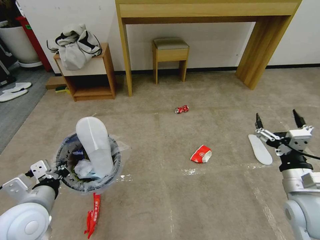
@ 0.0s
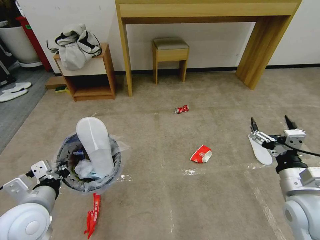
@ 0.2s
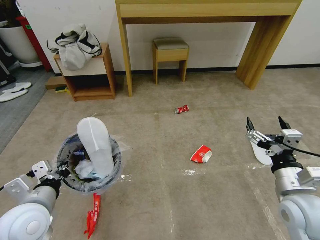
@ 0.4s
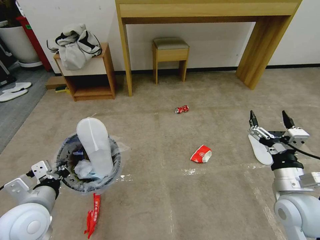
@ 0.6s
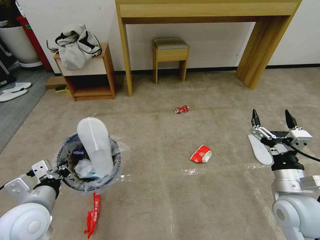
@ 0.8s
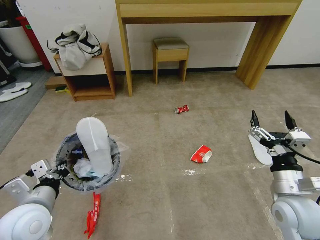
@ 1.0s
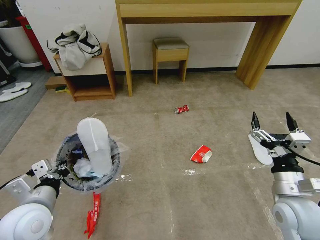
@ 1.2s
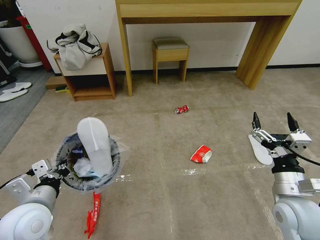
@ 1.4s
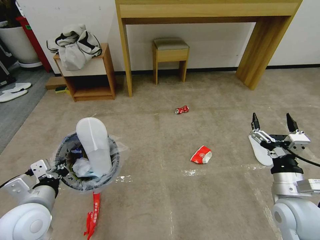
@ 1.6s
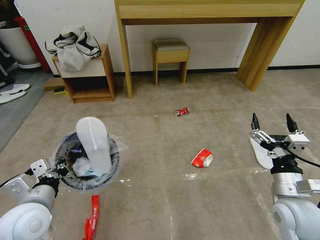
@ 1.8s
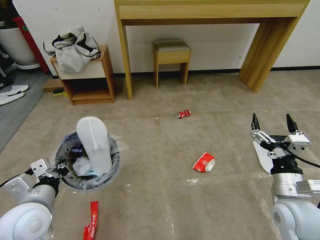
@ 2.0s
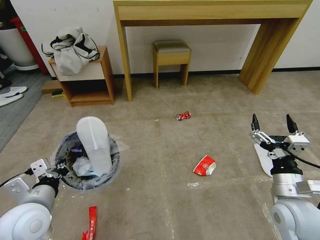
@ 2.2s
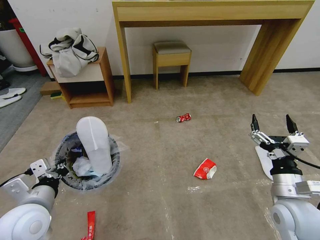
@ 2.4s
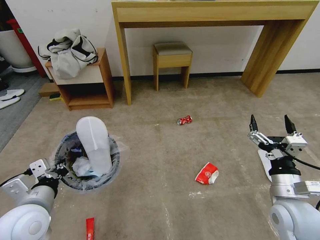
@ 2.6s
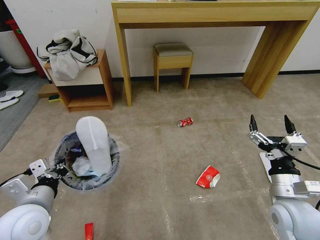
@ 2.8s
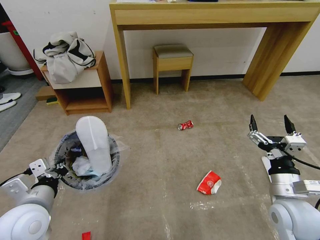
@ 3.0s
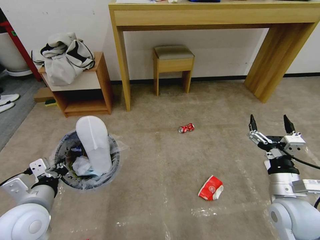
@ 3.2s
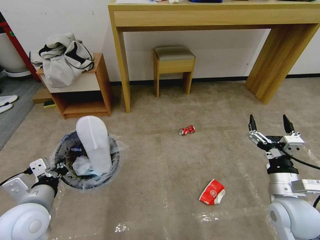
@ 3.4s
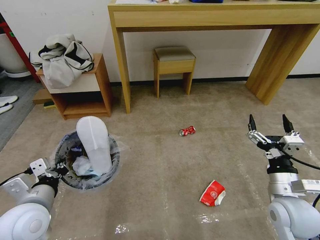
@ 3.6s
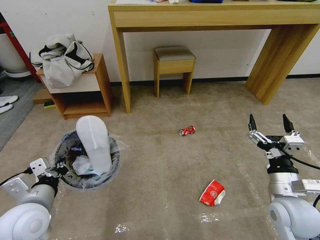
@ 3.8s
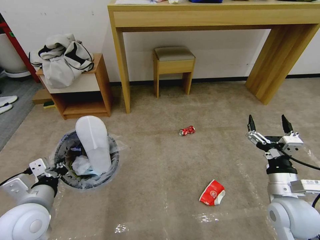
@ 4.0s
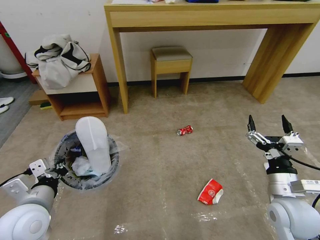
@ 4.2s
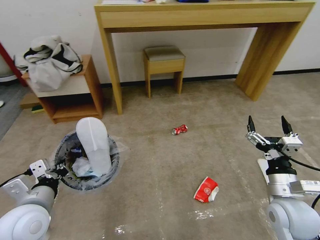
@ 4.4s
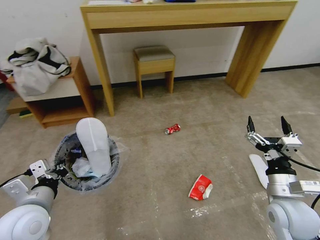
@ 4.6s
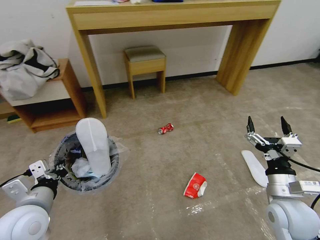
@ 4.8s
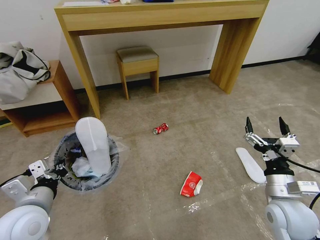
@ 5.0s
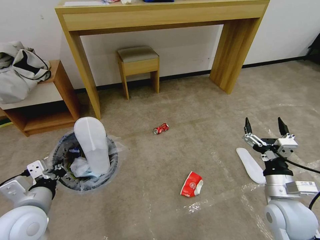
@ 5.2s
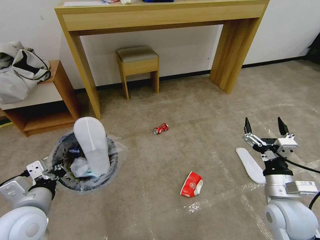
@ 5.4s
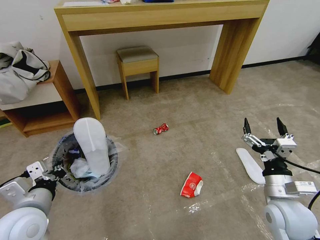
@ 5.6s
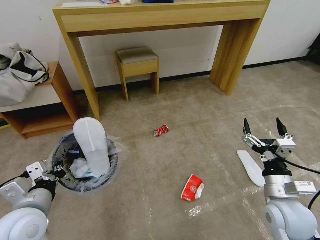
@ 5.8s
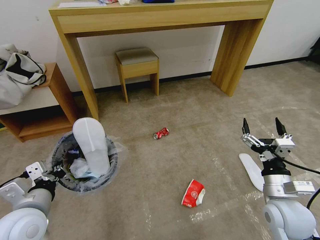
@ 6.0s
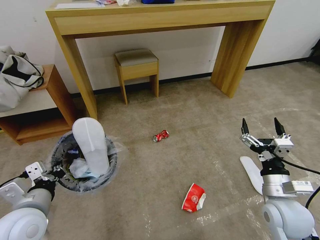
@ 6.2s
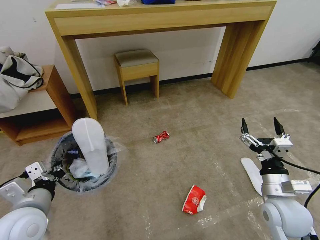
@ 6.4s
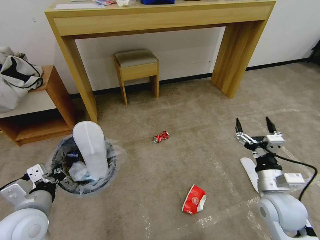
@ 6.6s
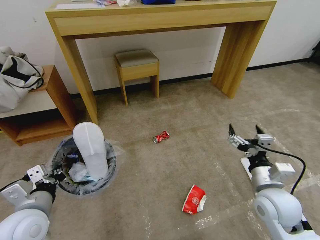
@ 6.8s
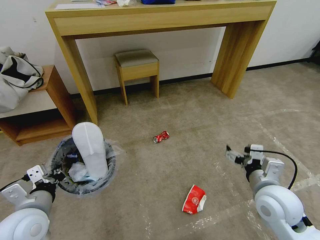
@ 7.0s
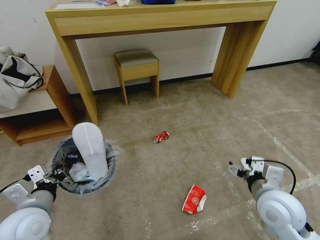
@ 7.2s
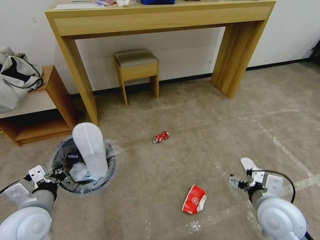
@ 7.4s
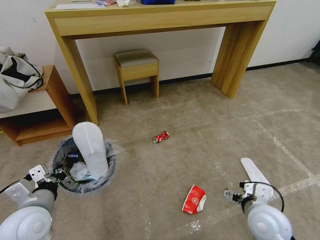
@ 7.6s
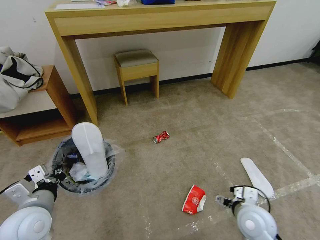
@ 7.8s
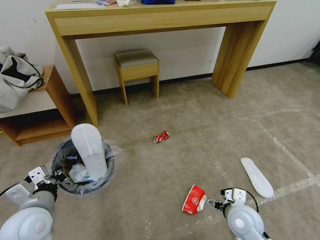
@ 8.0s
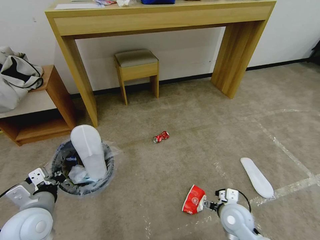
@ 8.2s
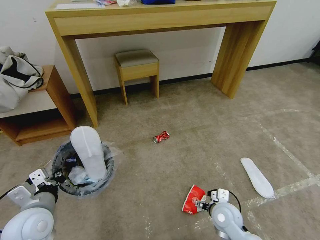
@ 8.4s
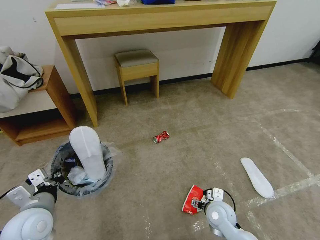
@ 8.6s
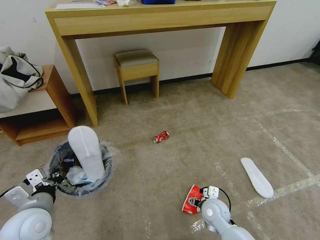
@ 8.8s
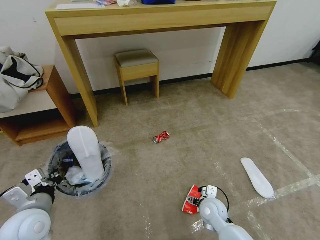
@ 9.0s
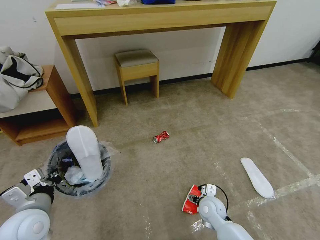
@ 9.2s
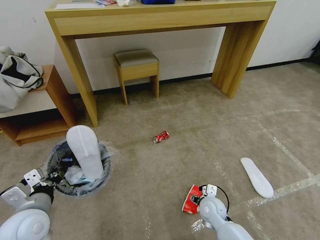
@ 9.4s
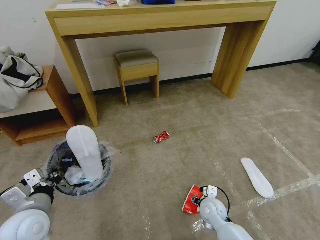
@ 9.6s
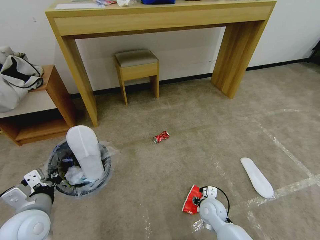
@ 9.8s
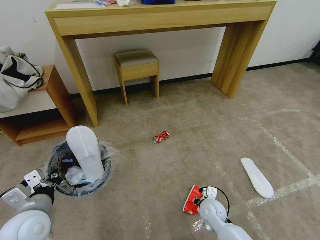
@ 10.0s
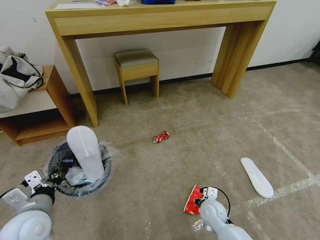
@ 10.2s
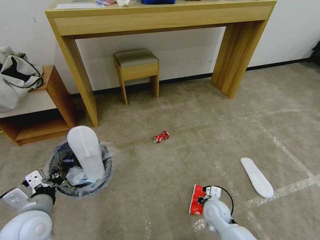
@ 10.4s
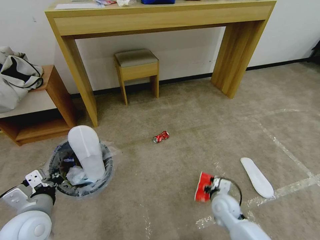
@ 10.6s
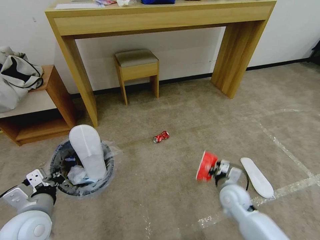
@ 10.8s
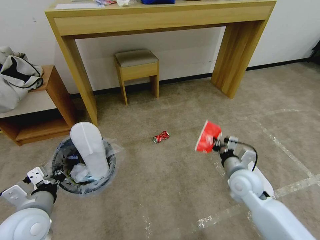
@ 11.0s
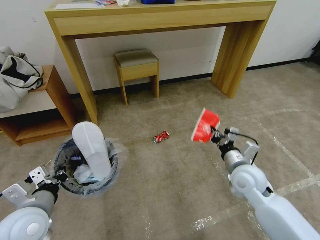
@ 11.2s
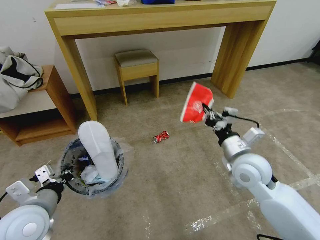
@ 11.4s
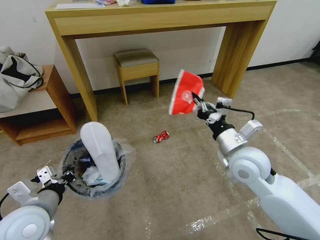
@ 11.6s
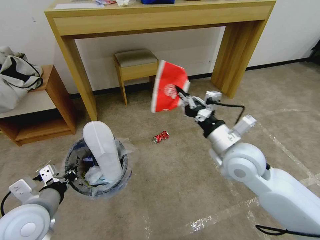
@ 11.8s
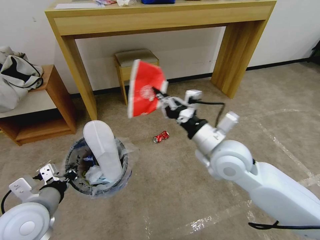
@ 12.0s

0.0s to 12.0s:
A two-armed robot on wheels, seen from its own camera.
Task of the whole recording: Pick up the trash bin and place the garbage on the floor into it.
0.0s to 1.6s: The grippers make only small movements.
6.0s to 7.6s: The right gripper ends up roughly 5 cm from where it was.
7.6s to 9.0s: The right gripper is displaced downward, to the left and forward by about 20 cm.
9.0s to 10.4s: The right gripper closes its fingers.
10.4s to 12.0s: The right gripper goes some 30 cm upward. The left gripper shifts by about 5 cm.

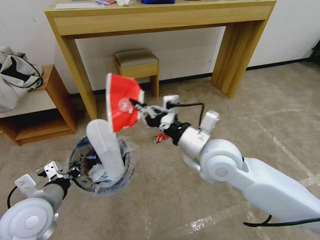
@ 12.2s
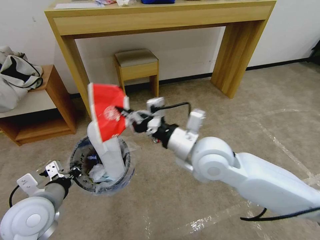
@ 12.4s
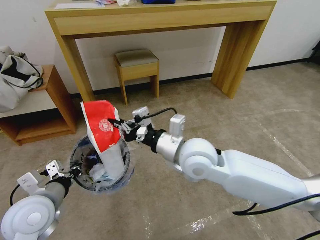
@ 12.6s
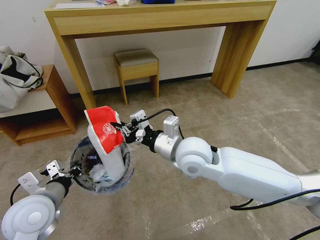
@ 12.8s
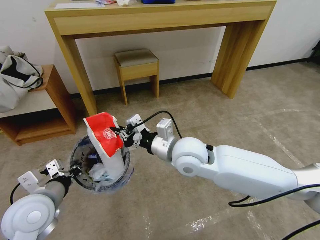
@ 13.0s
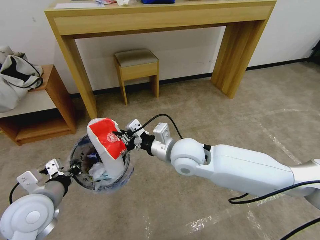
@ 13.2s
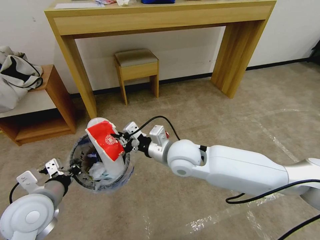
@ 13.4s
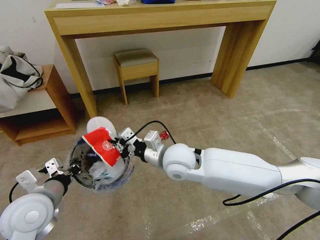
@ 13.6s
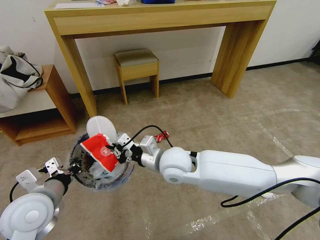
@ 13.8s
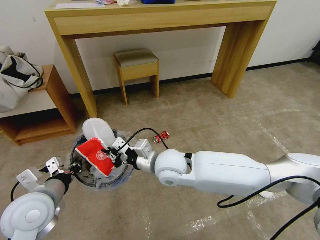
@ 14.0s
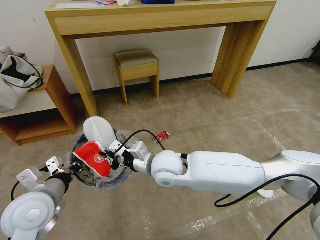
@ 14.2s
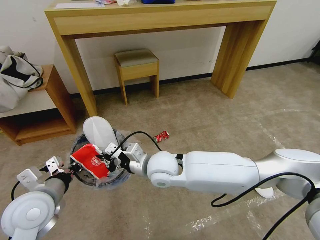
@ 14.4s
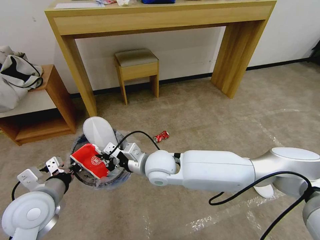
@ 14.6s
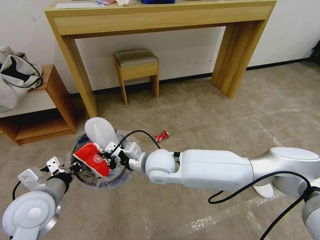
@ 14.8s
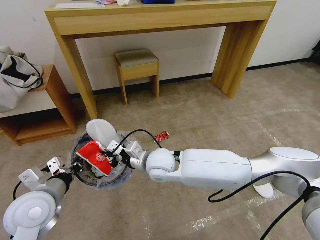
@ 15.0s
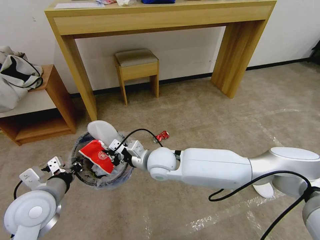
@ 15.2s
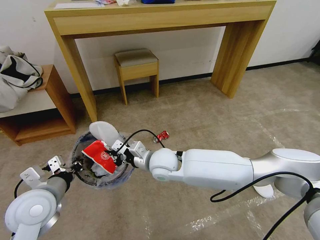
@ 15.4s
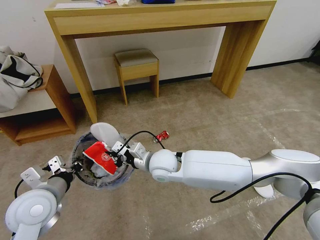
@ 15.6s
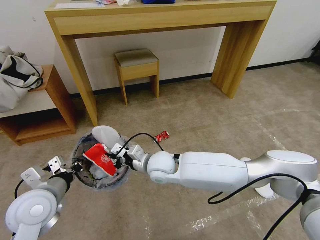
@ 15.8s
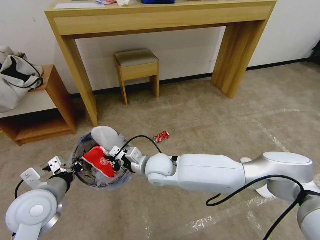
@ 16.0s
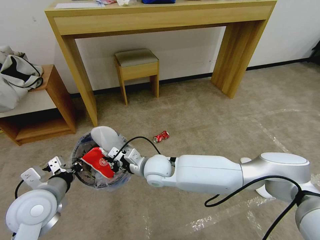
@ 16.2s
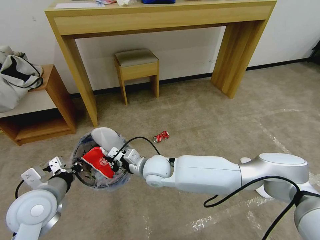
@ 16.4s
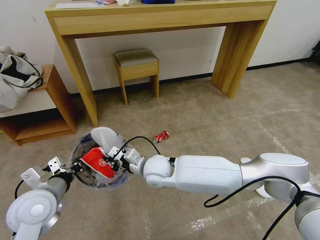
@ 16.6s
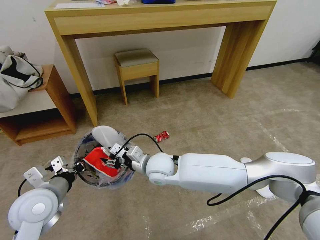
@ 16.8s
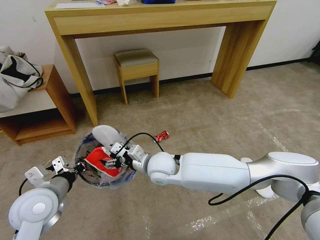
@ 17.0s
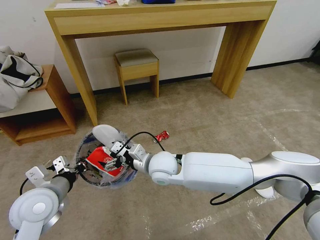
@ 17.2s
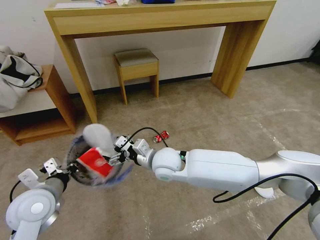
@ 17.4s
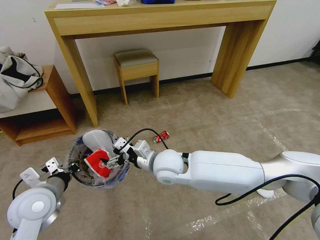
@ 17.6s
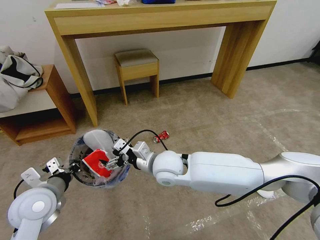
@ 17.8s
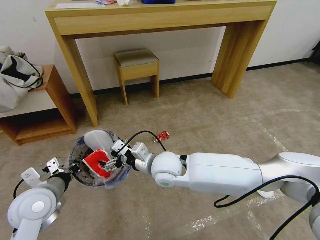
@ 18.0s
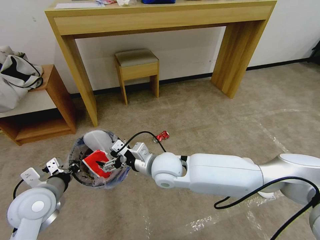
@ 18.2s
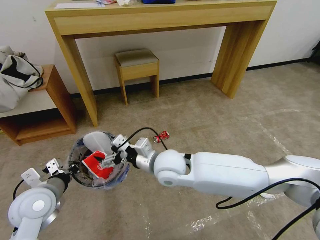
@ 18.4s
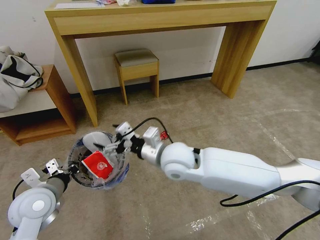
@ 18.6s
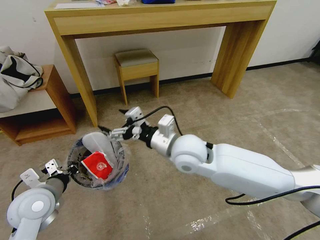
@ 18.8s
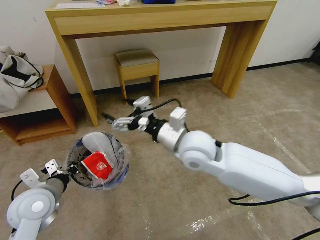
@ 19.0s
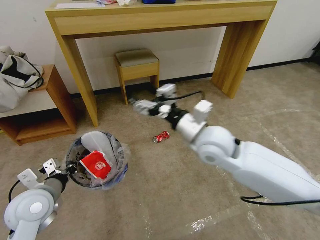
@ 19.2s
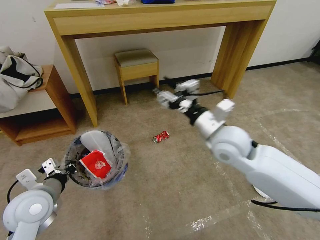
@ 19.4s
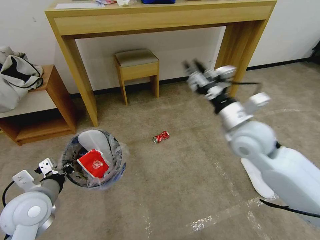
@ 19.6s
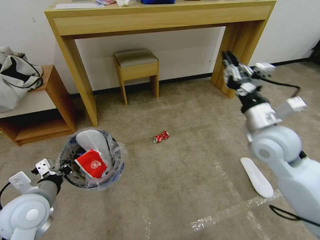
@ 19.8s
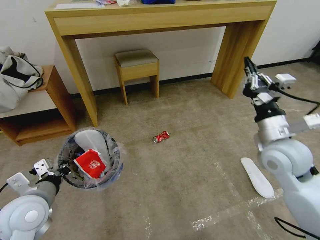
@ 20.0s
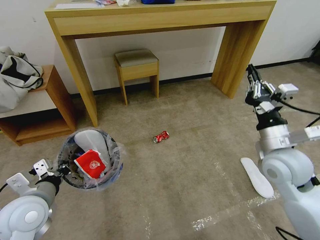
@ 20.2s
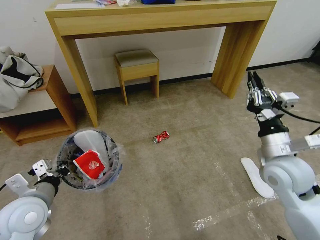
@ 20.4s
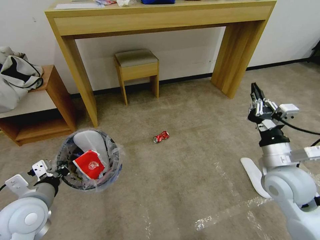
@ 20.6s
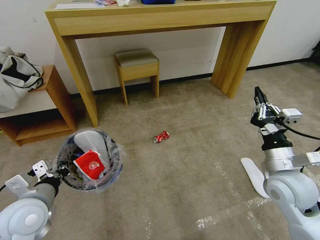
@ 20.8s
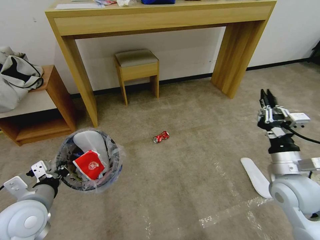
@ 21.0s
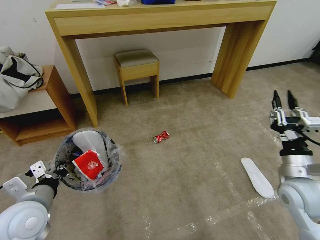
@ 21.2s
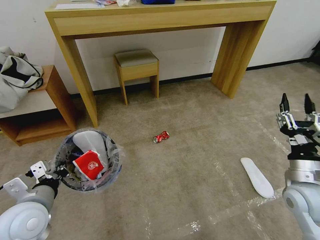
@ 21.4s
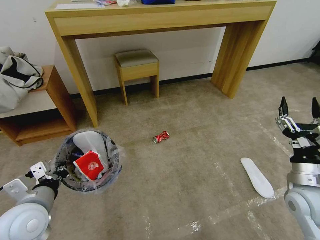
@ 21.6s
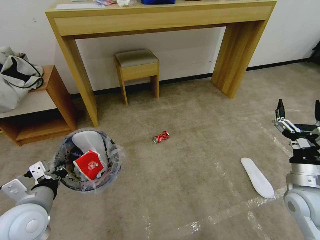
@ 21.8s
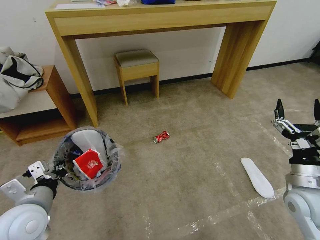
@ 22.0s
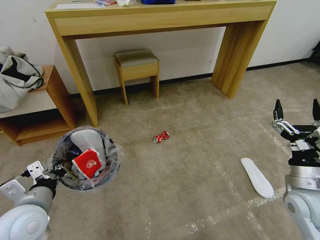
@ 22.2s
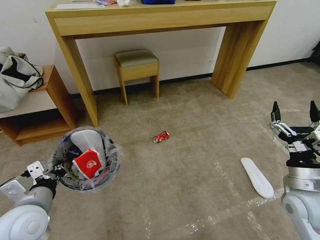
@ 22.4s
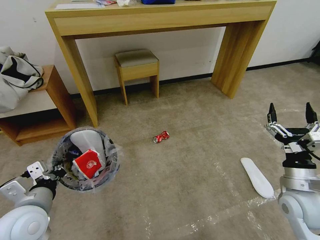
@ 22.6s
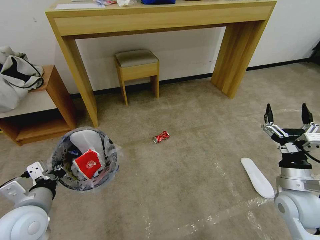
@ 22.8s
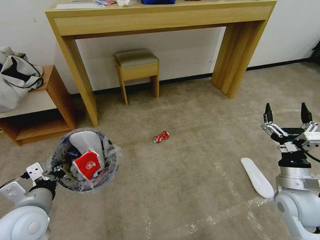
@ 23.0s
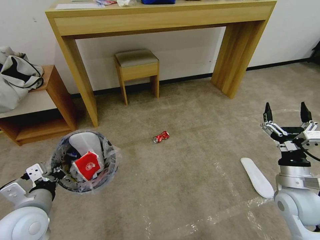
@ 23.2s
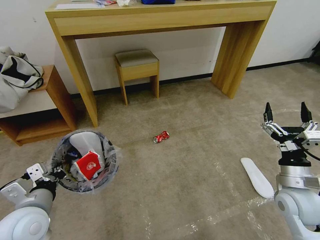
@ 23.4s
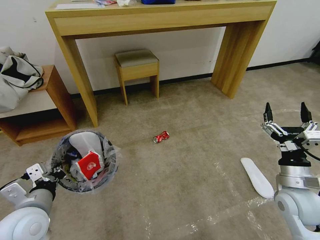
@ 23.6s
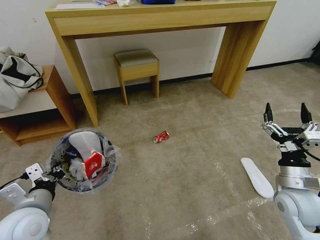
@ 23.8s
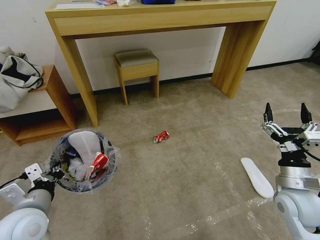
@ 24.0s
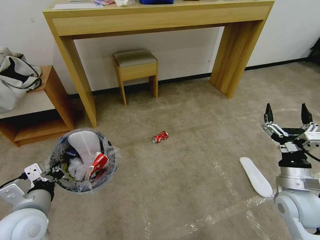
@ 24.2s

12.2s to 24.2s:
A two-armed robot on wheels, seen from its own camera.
Task of the whole recording: Pick up the trash bin and place the garbage on the floor into it.
12.2s to 13.8s: The right gripper heads to the left and downward, covering some 15 cm.
13.8s to 15.2s: The right gripper shifts by approximately 5 cm.
15.2s to 16.6s: The grippers move only a little.
16.6s to 18.2s: The right gripper ends up roughly 5 cm from where it was, and opens up.
18.2s to 19.8s: The right gripper travels to the right by approximately 25 cm, and closes up.
19.8s to 21.2s: The right gripper shifts some 15 cm downward, backward and to the right.
21.2s to 22.6s: The right gripper opens up.
22.6s to 24.2s: Both grippers stay about where they are.
